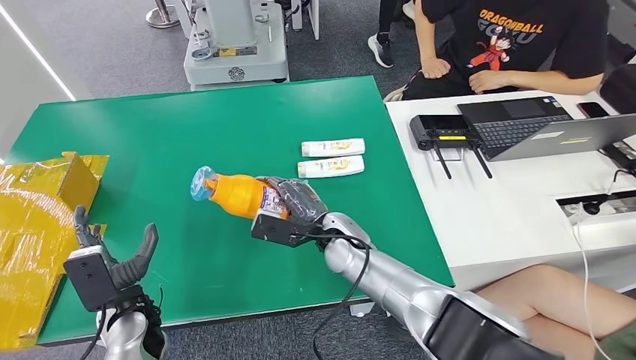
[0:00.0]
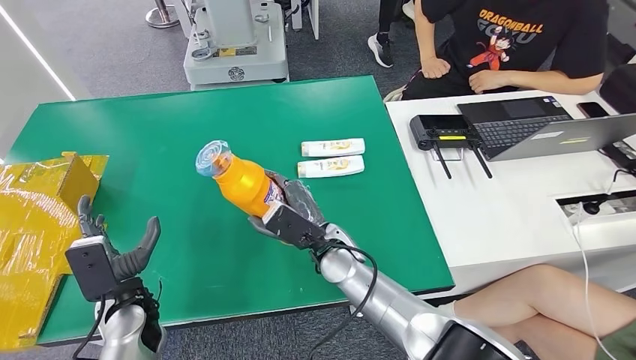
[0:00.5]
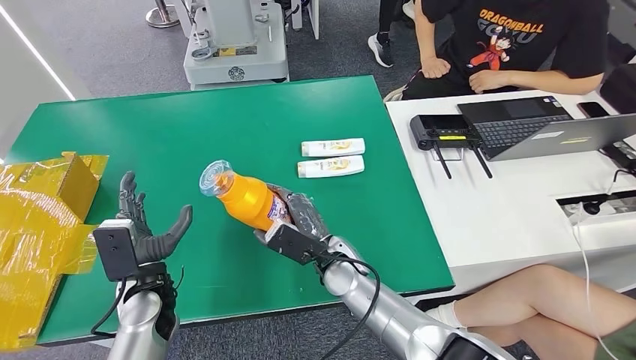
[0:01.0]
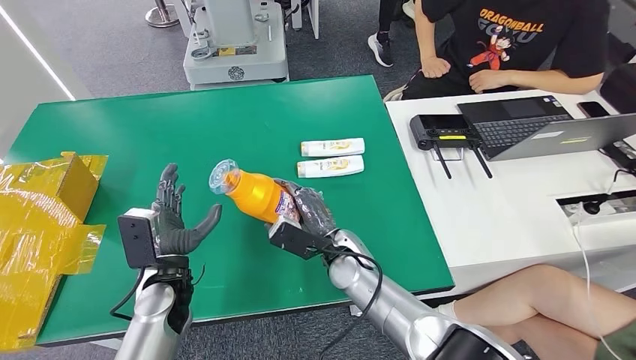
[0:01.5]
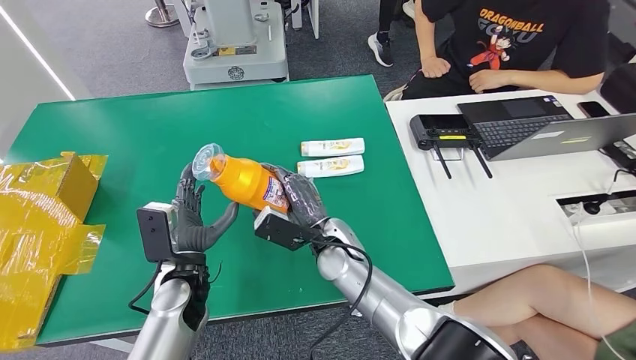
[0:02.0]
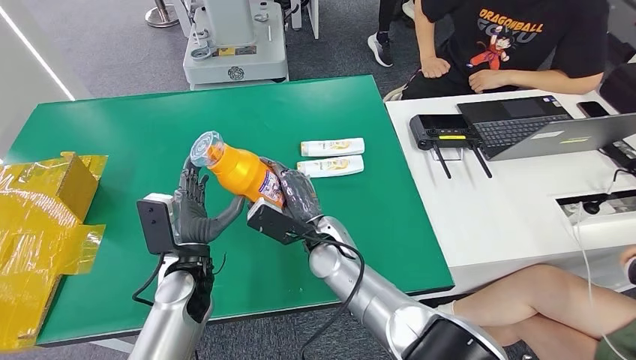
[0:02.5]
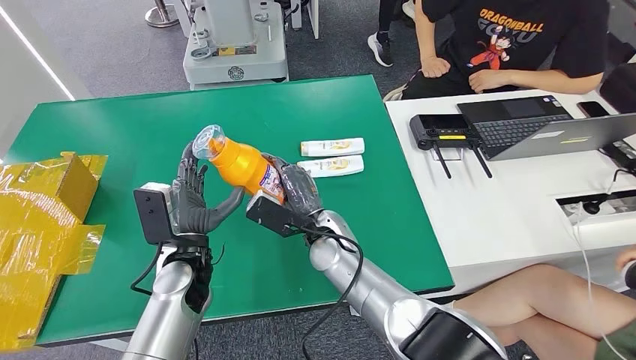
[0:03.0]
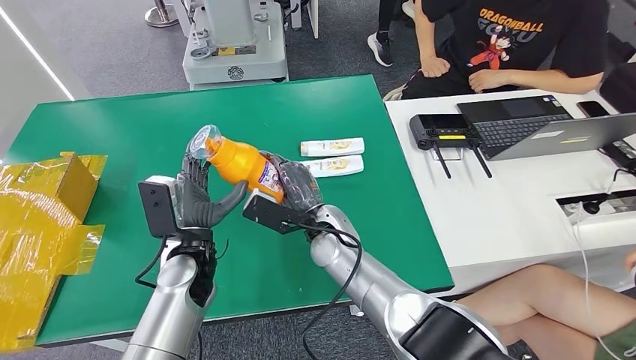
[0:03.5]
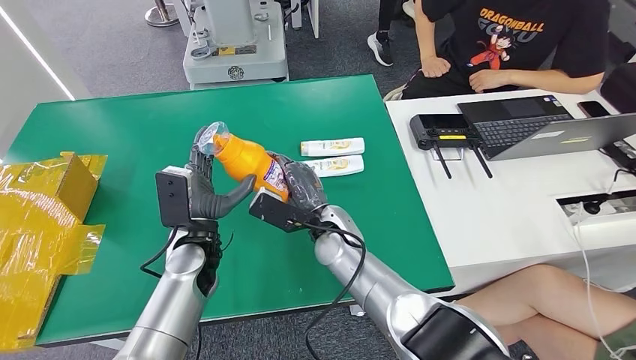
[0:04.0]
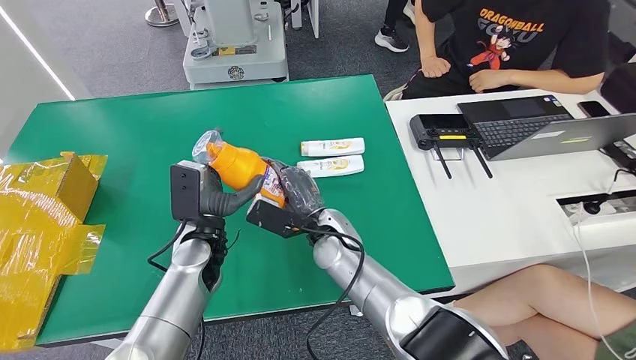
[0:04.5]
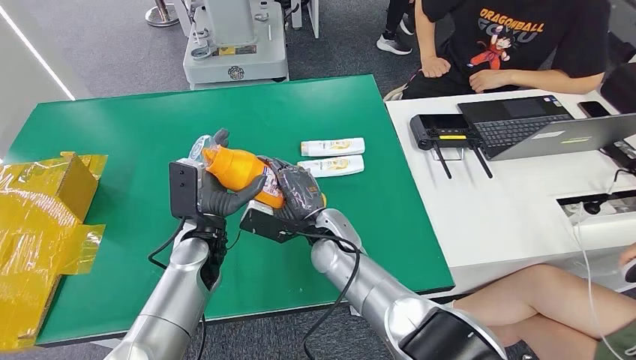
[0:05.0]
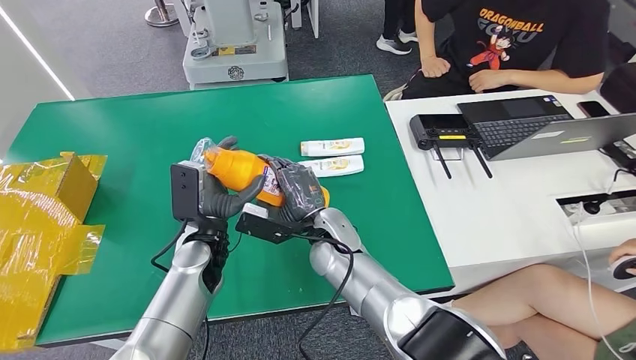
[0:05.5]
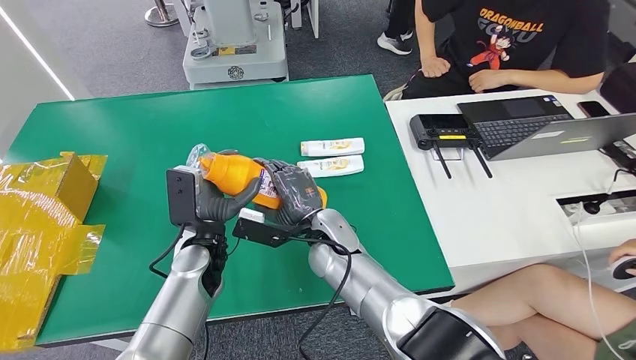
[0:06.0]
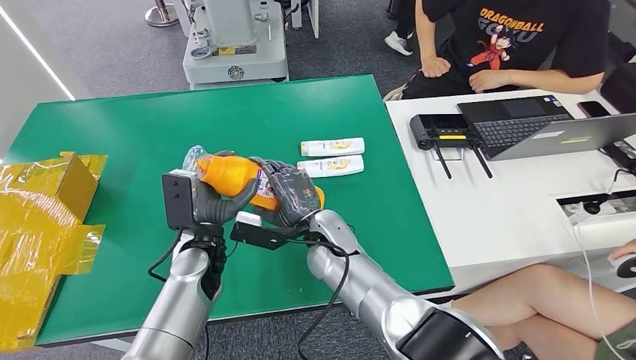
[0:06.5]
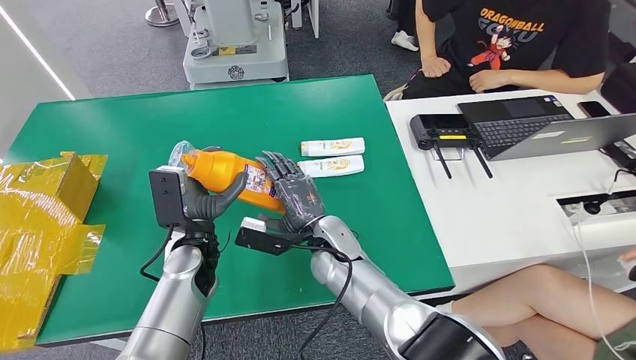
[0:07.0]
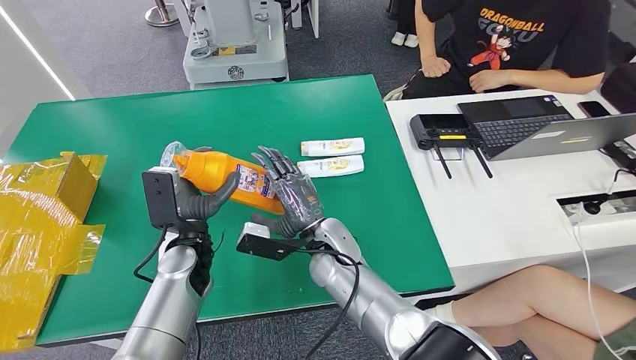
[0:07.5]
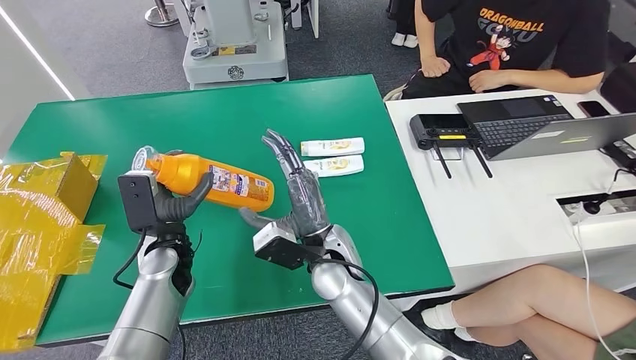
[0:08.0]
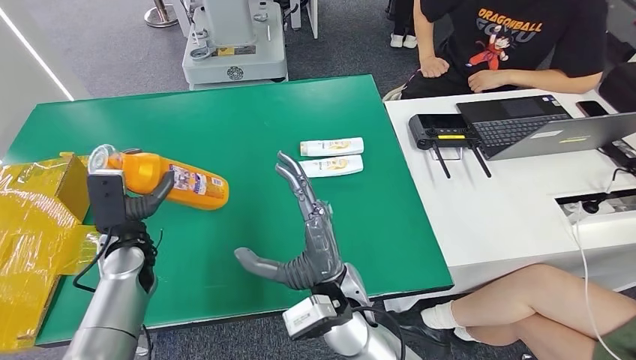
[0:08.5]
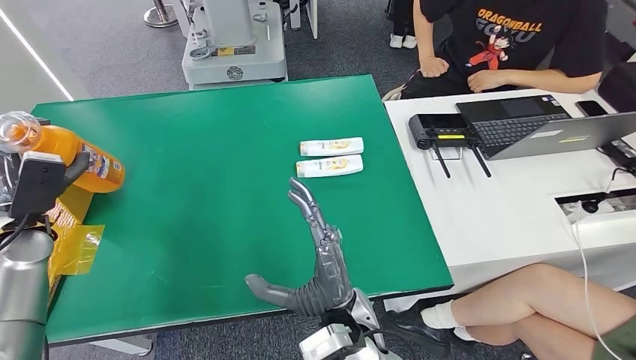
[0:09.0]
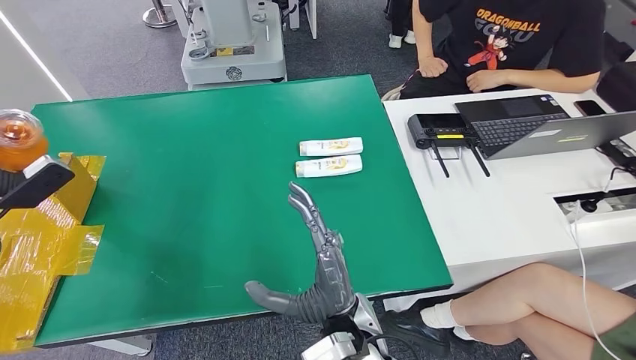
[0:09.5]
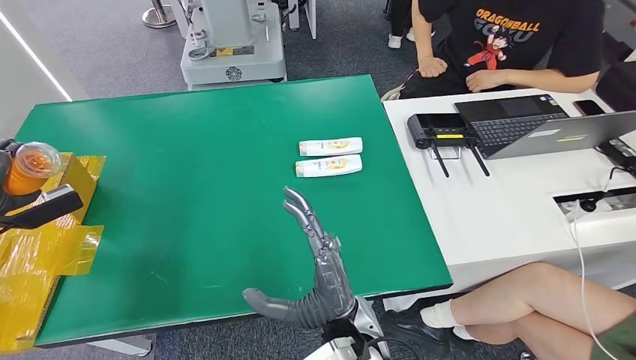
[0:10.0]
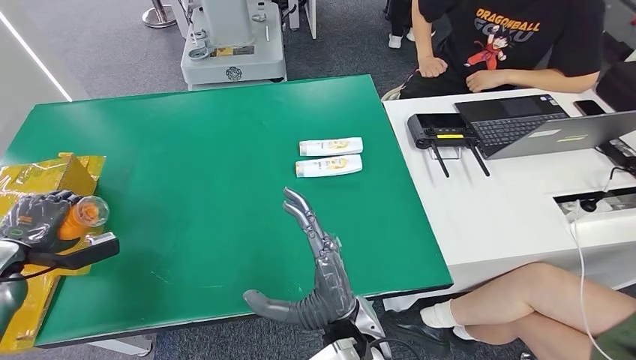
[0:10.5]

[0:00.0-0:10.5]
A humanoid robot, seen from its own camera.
Step, 0:01.0 to 0:10.5: Turn the bottle to the front side.
0:00.0 to 0:02.0: The left hand goes some 10 cm to the right.
0:02.0 to 0:04.0: The left hand shifts by roughly 5 cm.
0:04.0 to 0:06.5: The hands stay close to where they were, moving slightly.
